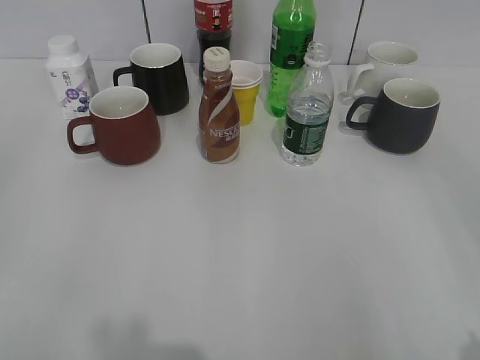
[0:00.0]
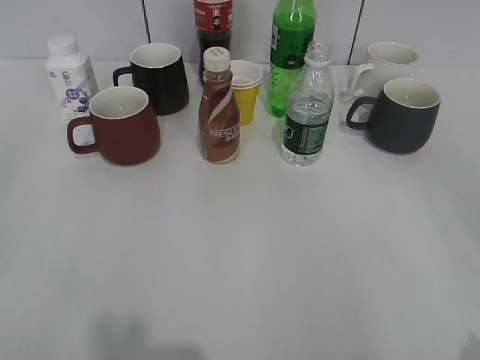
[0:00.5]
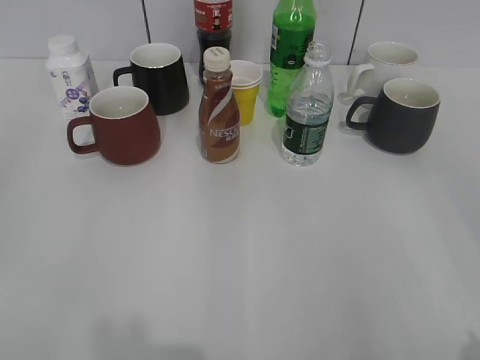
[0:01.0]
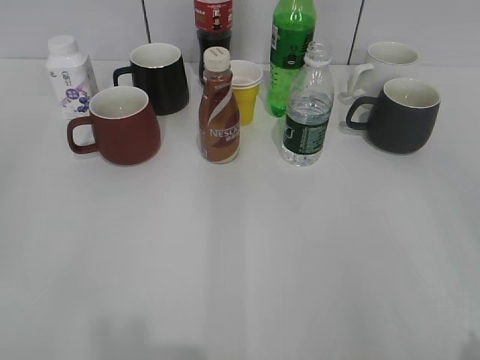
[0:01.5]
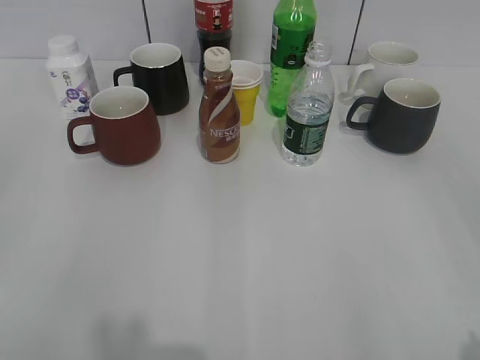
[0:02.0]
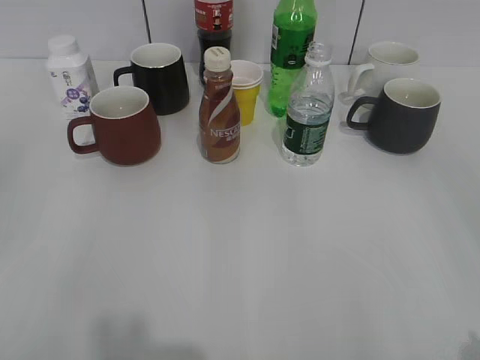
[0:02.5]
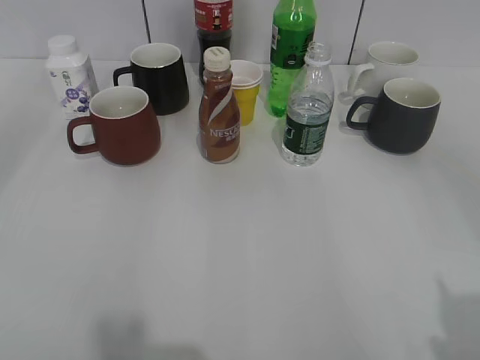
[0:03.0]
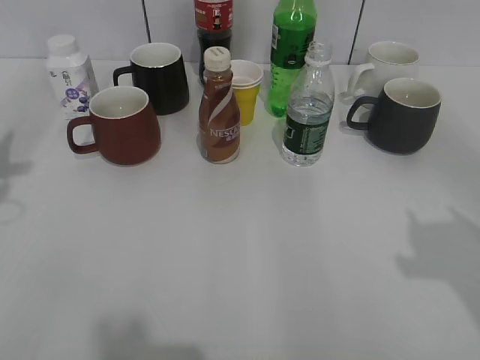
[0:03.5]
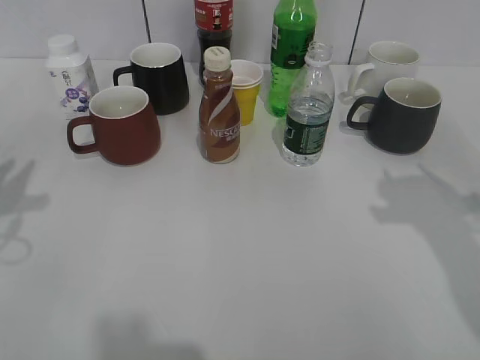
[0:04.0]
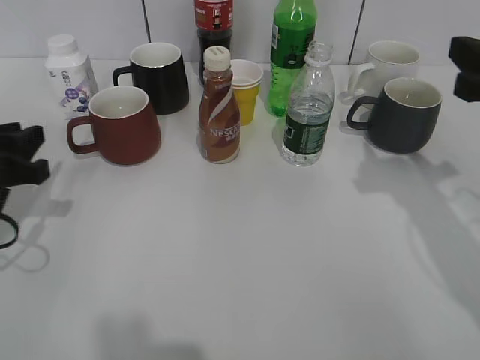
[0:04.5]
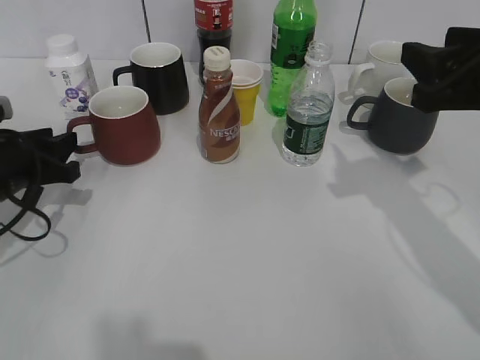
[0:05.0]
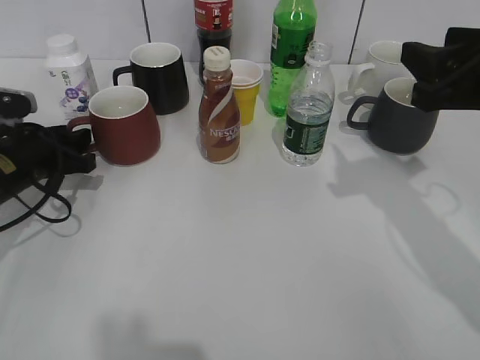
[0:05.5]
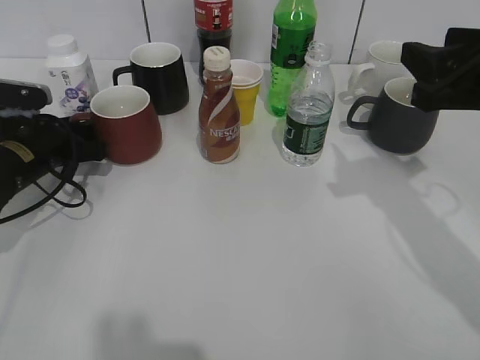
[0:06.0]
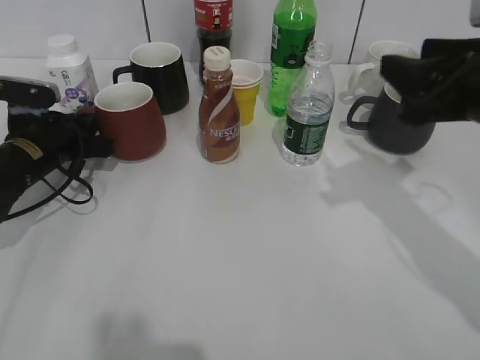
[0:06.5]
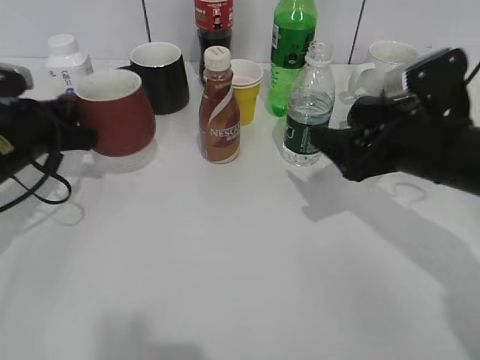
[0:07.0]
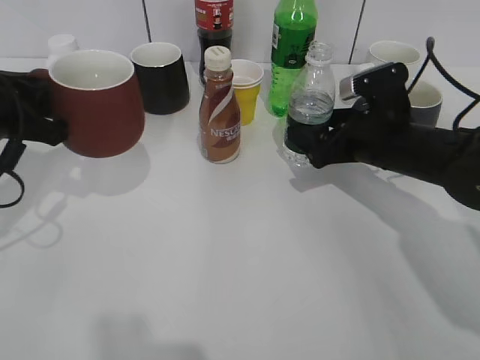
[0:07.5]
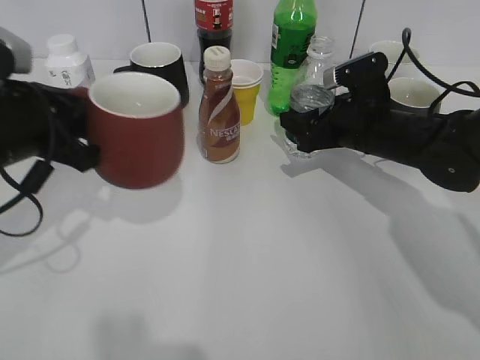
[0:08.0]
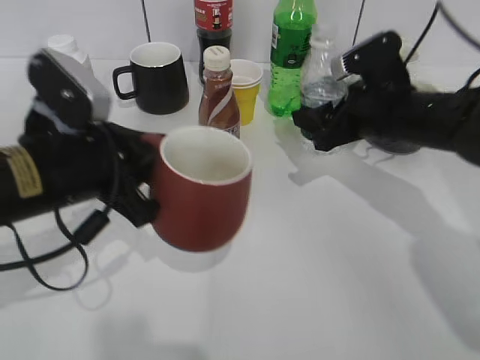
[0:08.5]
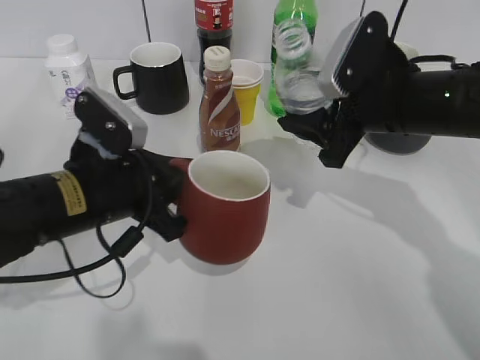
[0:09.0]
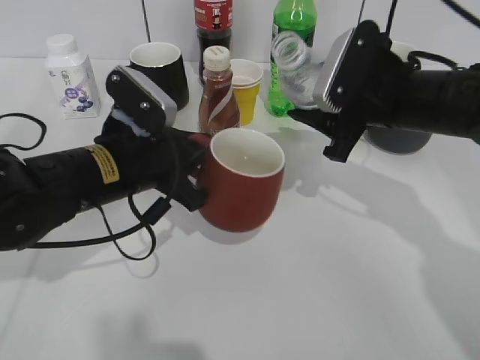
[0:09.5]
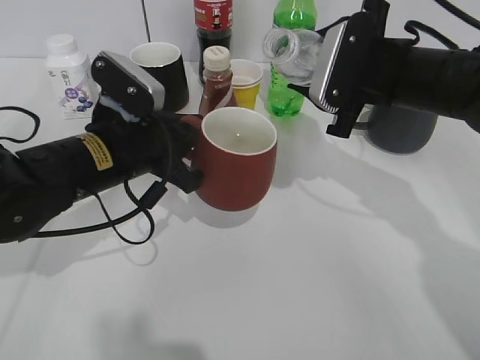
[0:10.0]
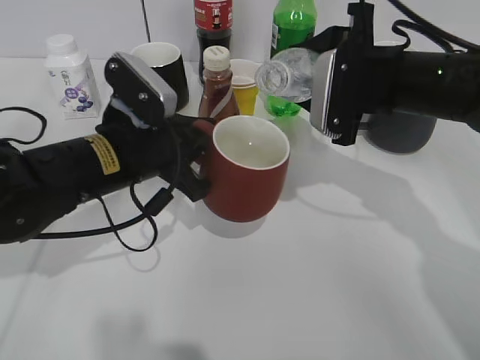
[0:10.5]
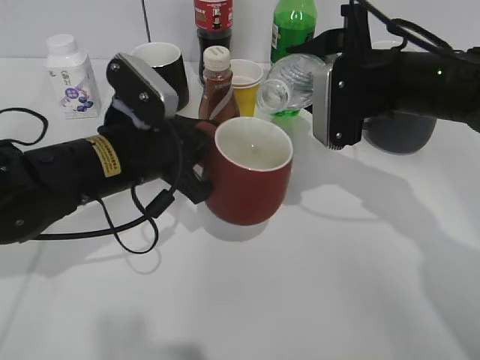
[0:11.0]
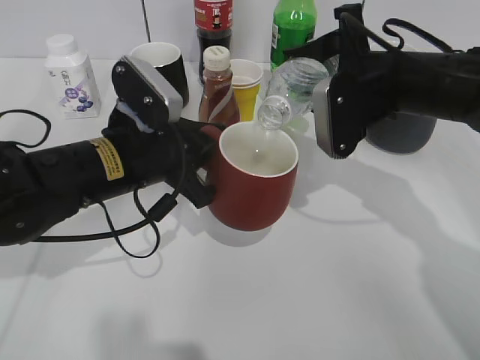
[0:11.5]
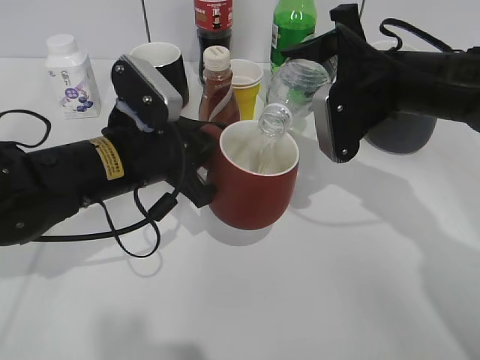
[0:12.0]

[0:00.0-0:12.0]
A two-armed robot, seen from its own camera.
Step, 0:02.5 to 0:06.0: Grasp the red cup with left gripper.
Step, 0:07.5 to 0:08.0: Grasp the bottle with water with right gripper.
0:02.0 to 0:04.0: Both grippers travel together forward, some 20 cm. The right gripper closes up.
0:04.0 to 0:06.0: The right gripper heads forward, covering roughly 5 cm; the left gripper heads forward and downward, covering some 15 cm.
0:06.0 to 0:08.0: The right gripper is displaced downward, forward and to the left by approximately 20 cm, and opens, then closes again; the left gripper moves upward and backward, about 15 cm, and closes its fingers.
0:08.0 to 0:10.0: The left gripper is displaced to the right by some 10 cm; the right gripper shifts roughly 10 cm upward.

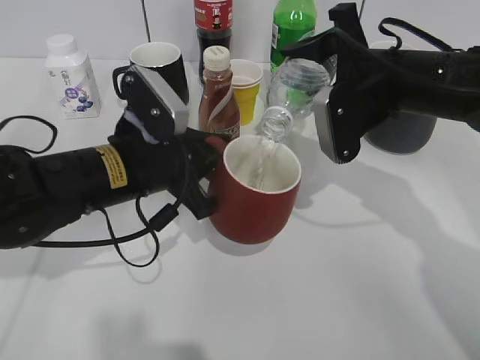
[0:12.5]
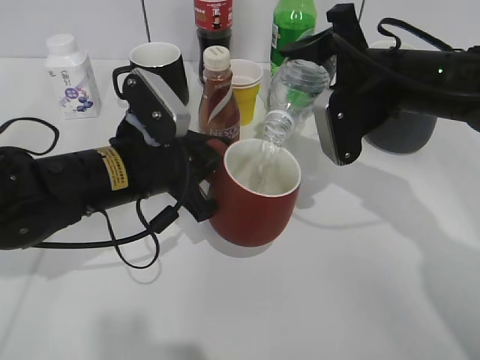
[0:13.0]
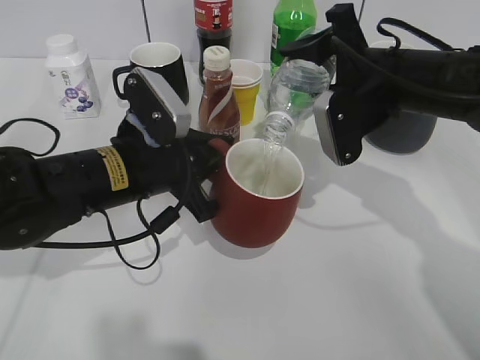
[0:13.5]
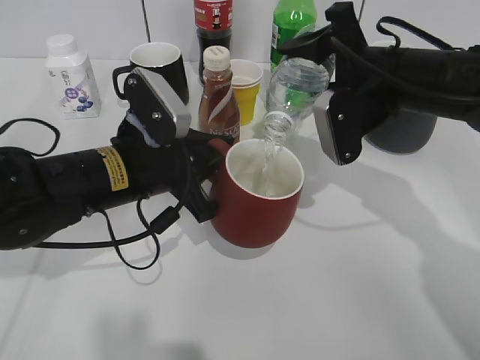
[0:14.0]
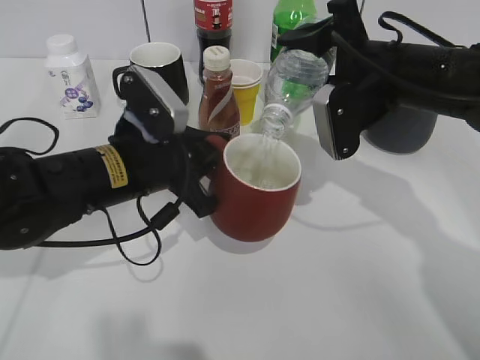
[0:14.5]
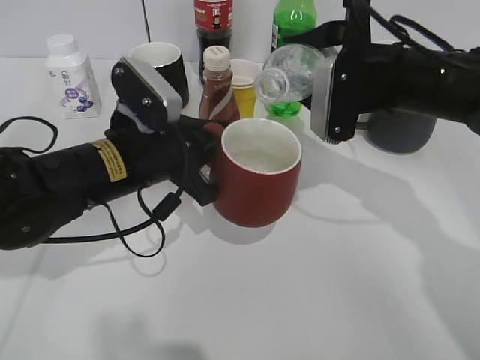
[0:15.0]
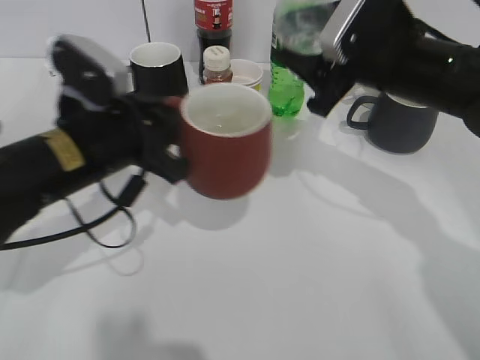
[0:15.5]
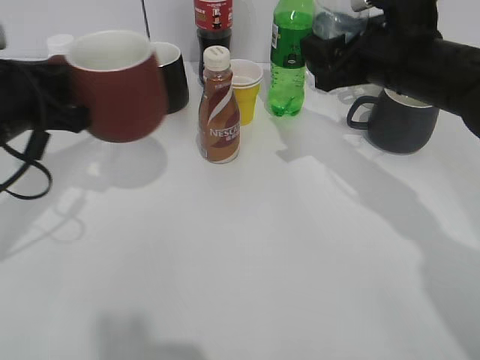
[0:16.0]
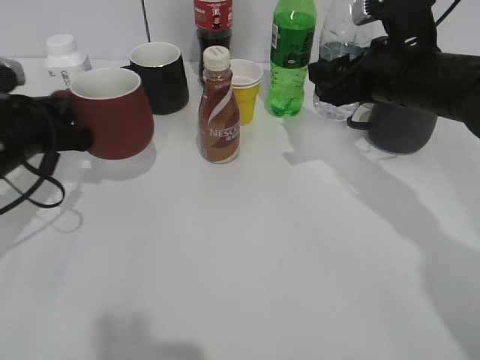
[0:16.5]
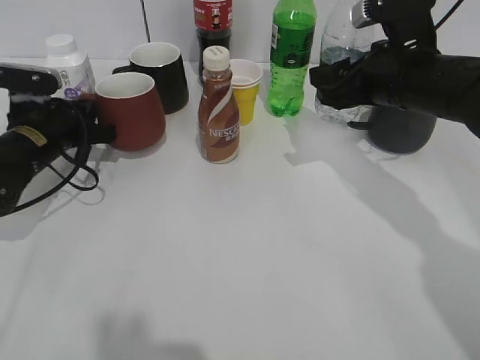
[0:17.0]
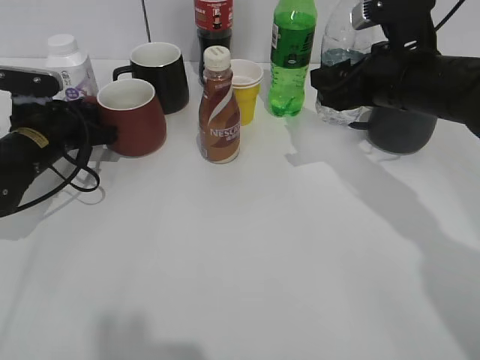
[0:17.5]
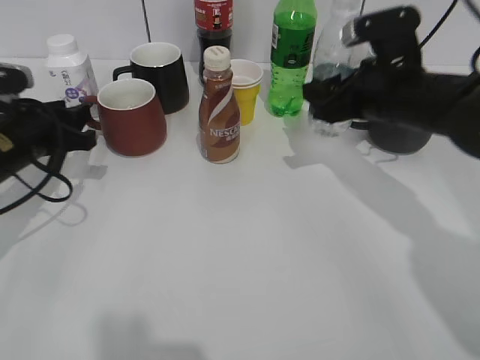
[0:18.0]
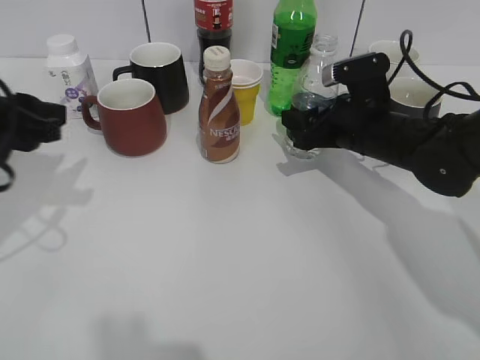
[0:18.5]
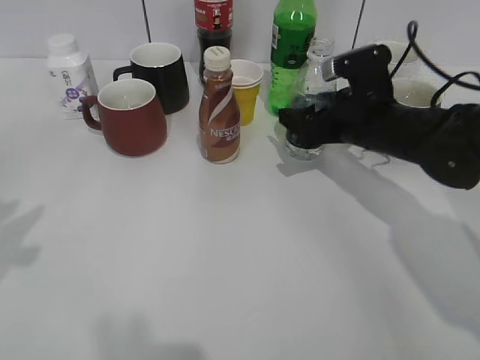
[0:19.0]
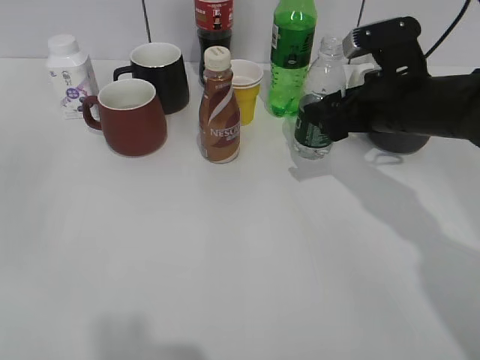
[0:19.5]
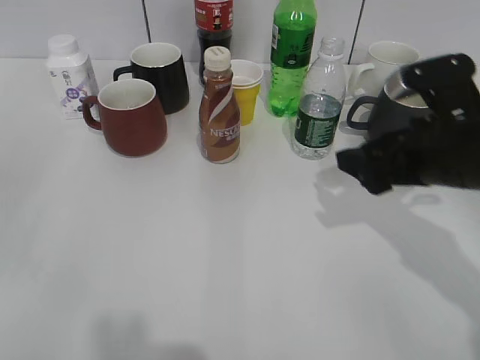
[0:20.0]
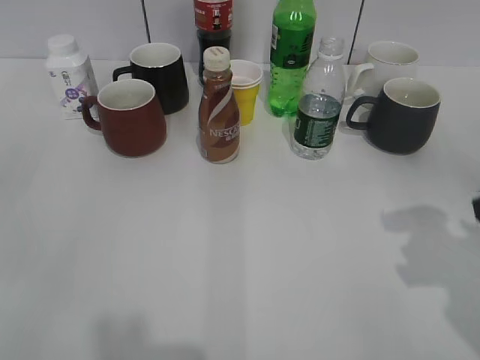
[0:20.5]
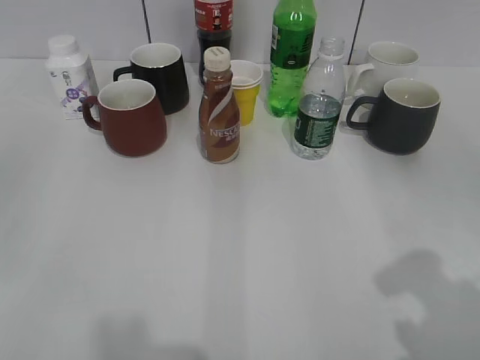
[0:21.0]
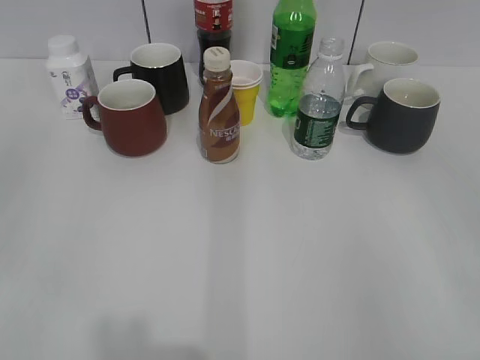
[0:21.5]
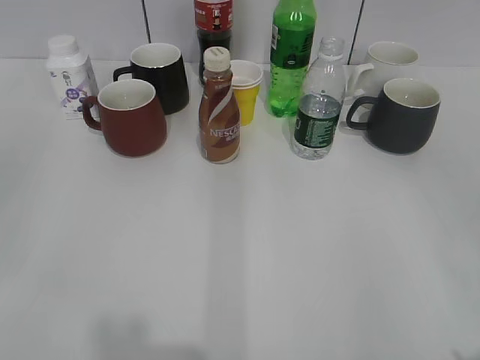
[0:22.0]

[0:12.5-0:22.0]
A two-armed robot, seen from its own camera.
Step, 0:12.5 to 0:15.0: Pour the water from bottle to cup with right gripper.
Step, 0:15.5 to 0:17.5: Place the red cup on the table with left gripper.
Step, 0:18.0 to 0:19.5: Place the water bottle on the table with right gripper.
0:12.5 to 0:14.5: The grippers move only a little.
0:14.5 to 0:16.5: The left gripper is displaced to the left by approximately 15 cm.
0:16.5 to 0:18.0: The left gripper opens.
0:18.0 to 0:20.0: The left gripper shifts about 30 cm backward and upward. The right gripper goes approximately 10 cm backward, and opens up.
0:20.0 to 0:22.0: The right gripper shifts about 25 cm backward.

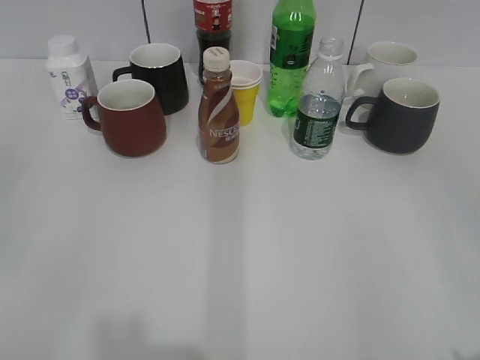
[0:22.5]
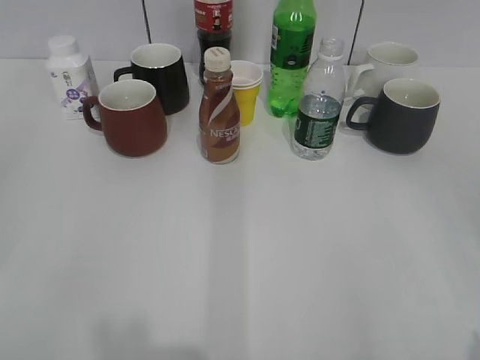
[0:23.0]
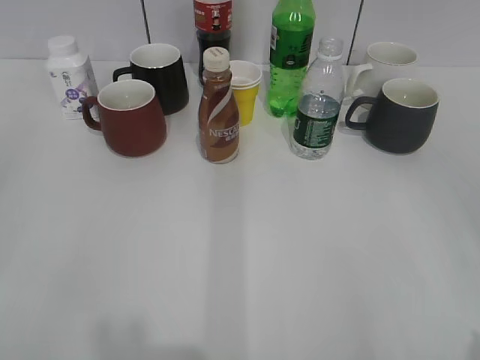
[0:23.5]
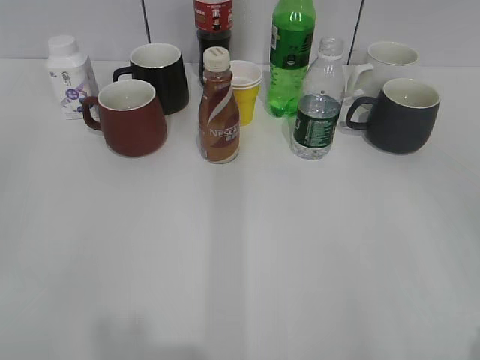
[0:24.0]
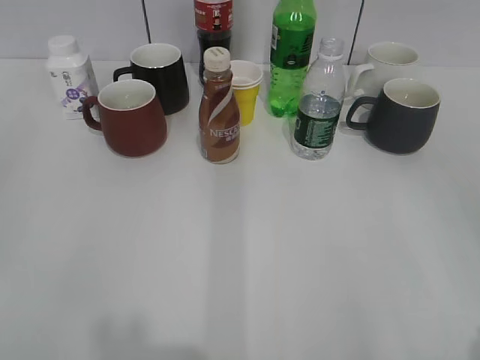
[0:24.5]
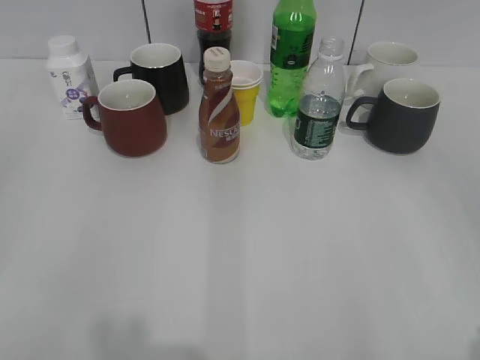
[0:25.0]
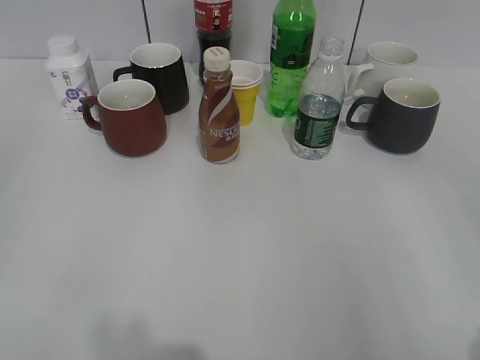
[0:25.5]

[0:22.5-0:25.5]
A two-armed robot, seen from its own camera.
0:24.0 to 0:25.5: The two grippers keep their place.

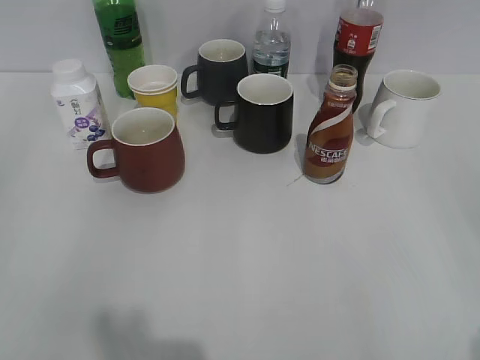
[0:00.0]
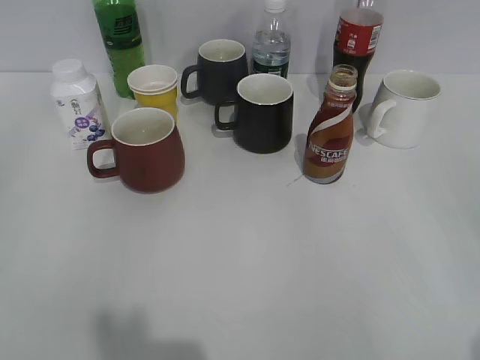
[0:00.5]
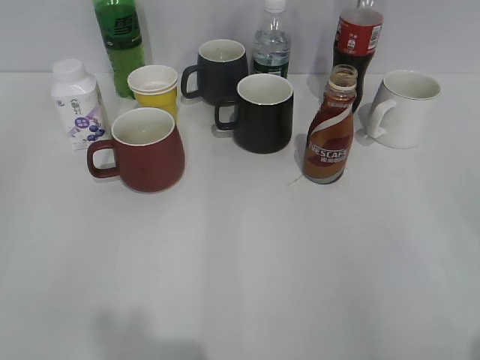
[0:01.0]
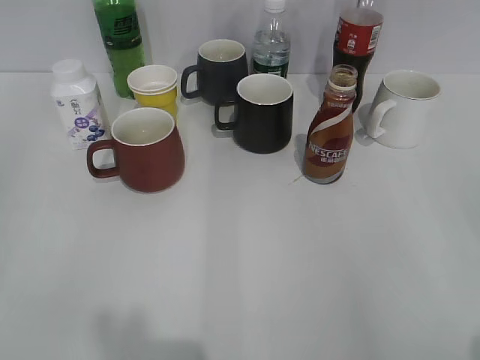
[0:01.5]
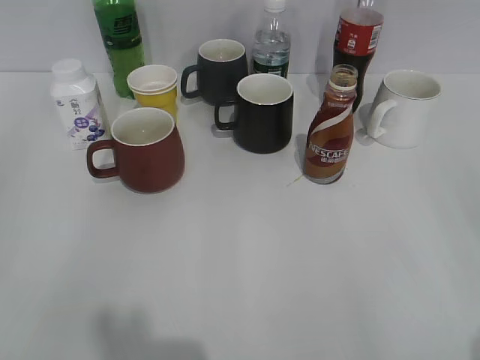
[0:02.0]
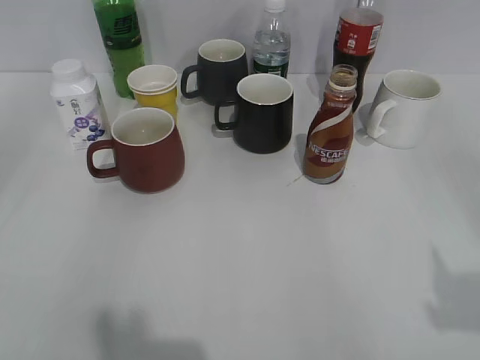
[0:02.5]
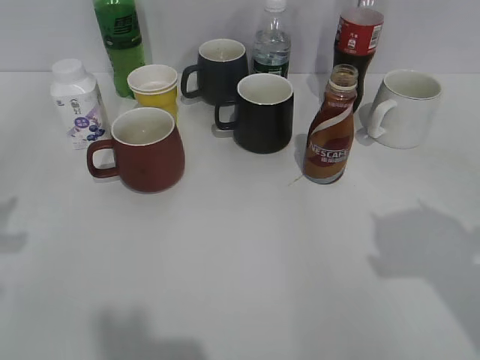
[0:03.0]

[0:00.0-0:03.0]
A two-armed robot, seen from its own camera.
0:01.5 to 0:03.0: The two grippers go about 15 cm forward. The left gripper closes its fingers.
